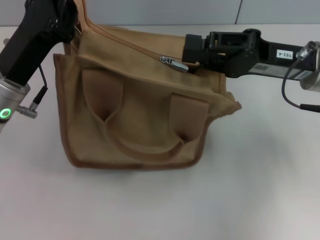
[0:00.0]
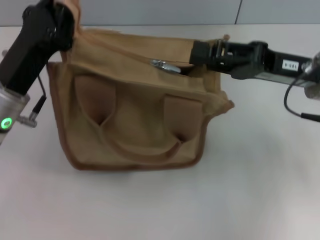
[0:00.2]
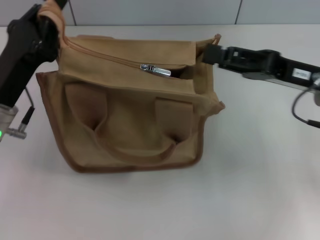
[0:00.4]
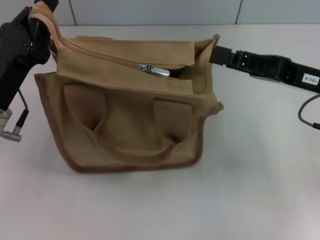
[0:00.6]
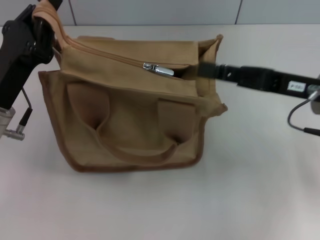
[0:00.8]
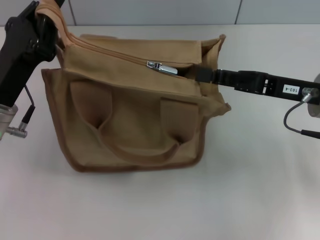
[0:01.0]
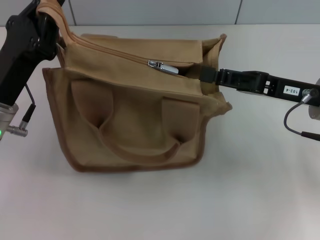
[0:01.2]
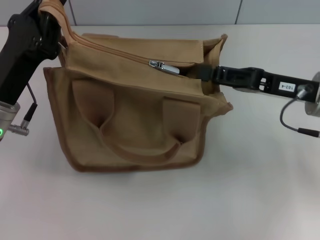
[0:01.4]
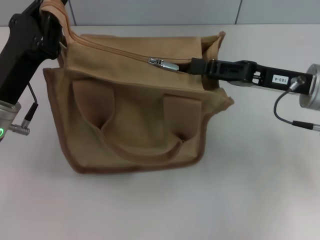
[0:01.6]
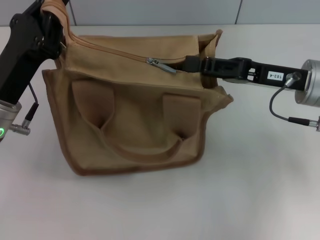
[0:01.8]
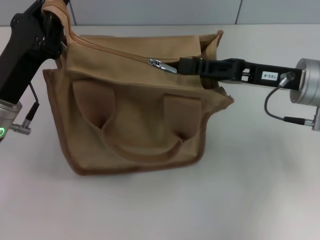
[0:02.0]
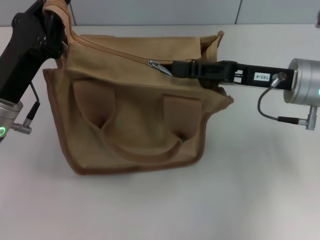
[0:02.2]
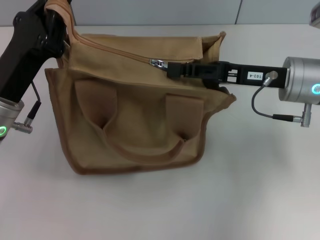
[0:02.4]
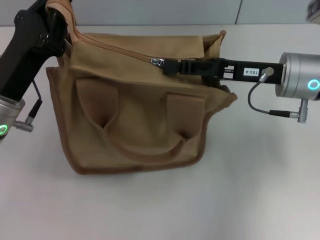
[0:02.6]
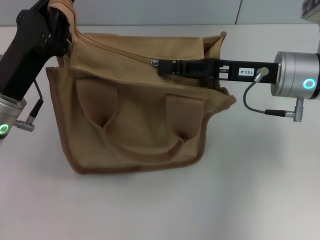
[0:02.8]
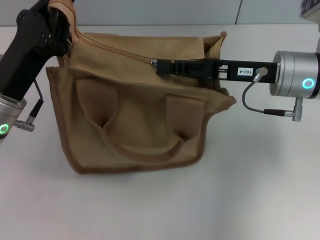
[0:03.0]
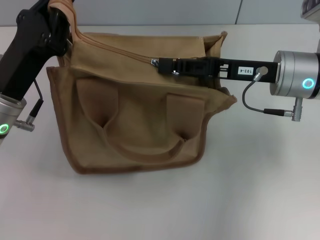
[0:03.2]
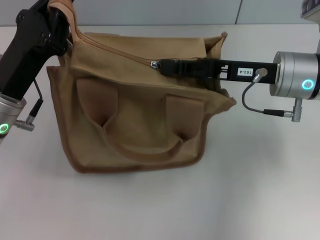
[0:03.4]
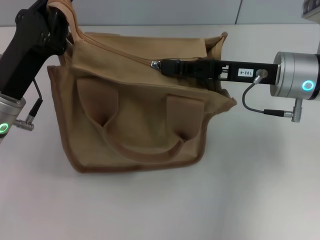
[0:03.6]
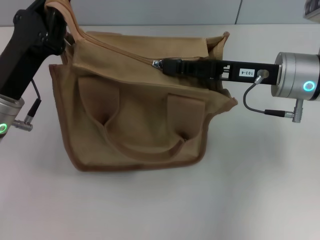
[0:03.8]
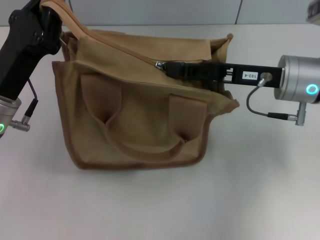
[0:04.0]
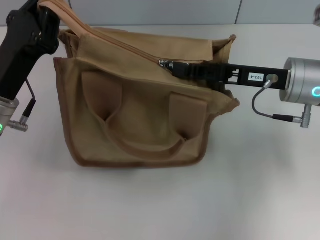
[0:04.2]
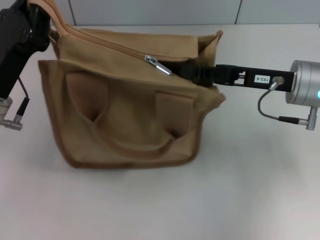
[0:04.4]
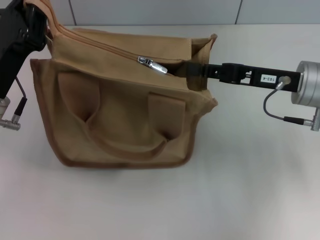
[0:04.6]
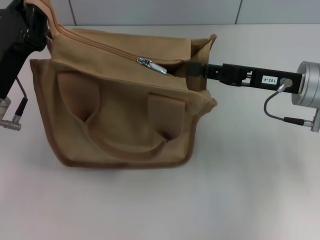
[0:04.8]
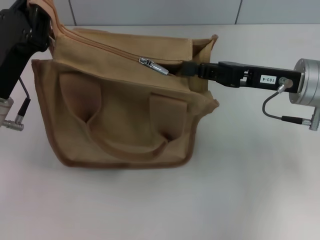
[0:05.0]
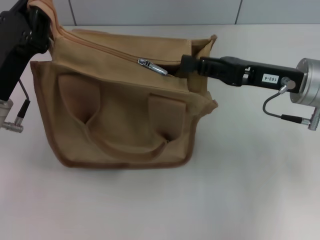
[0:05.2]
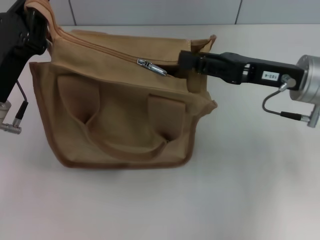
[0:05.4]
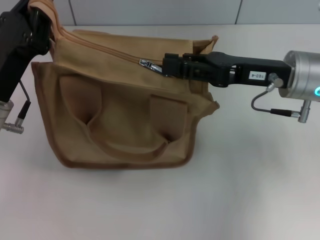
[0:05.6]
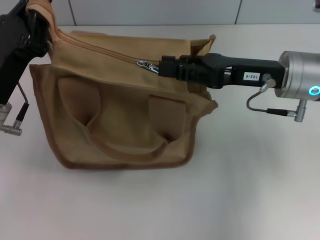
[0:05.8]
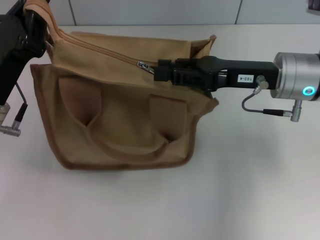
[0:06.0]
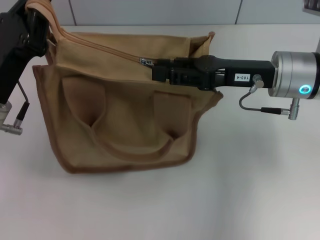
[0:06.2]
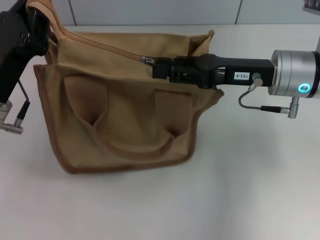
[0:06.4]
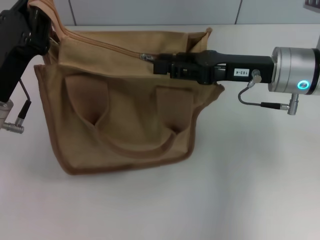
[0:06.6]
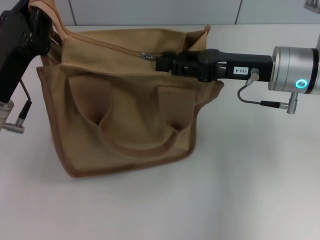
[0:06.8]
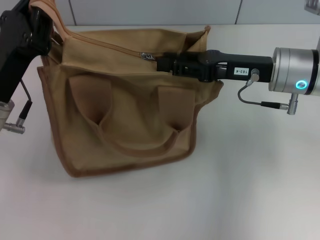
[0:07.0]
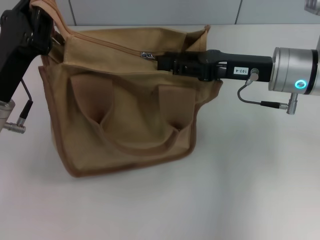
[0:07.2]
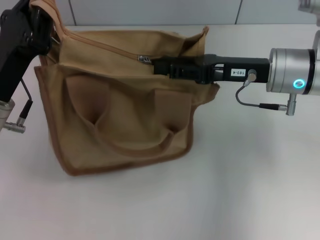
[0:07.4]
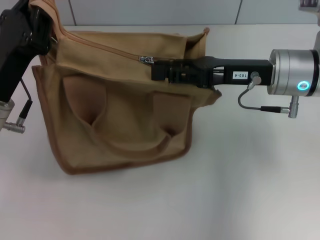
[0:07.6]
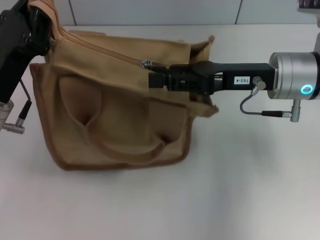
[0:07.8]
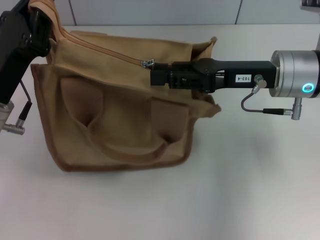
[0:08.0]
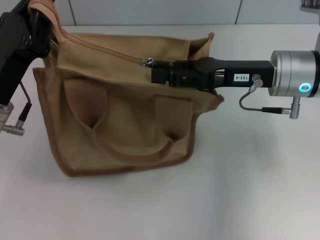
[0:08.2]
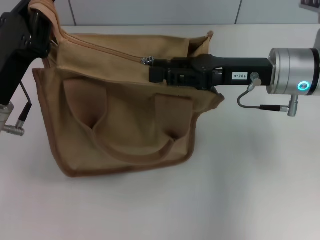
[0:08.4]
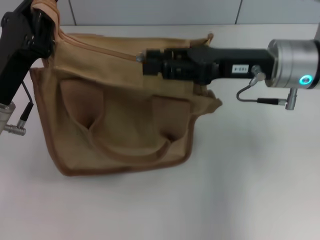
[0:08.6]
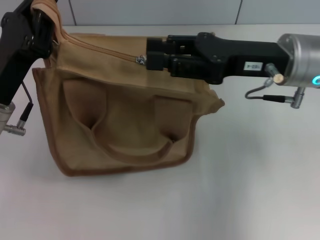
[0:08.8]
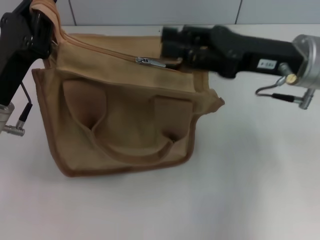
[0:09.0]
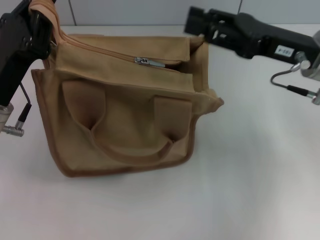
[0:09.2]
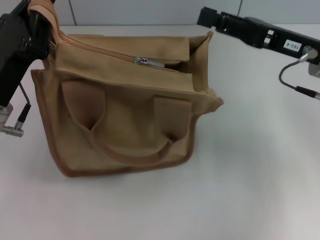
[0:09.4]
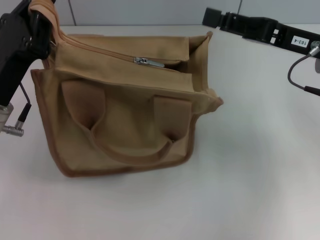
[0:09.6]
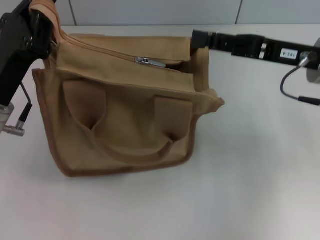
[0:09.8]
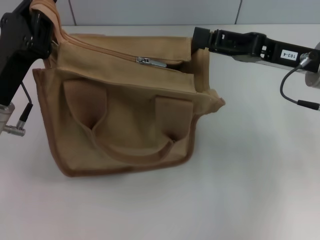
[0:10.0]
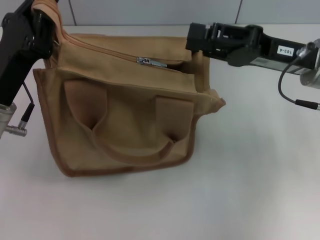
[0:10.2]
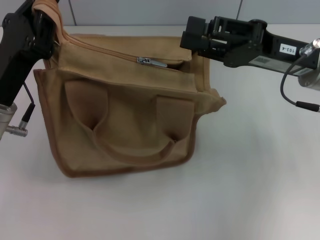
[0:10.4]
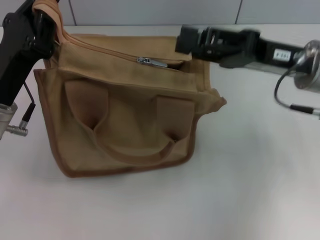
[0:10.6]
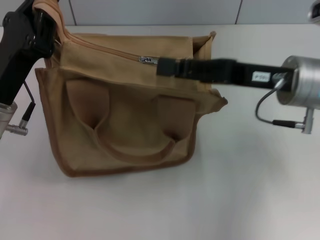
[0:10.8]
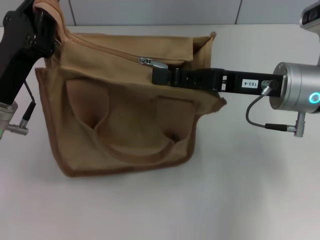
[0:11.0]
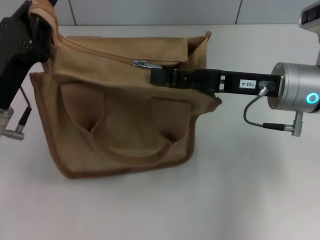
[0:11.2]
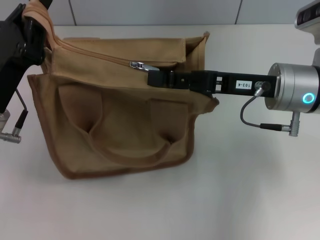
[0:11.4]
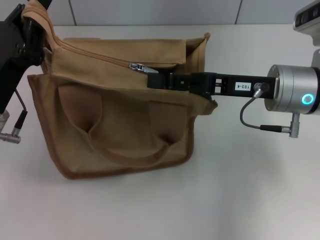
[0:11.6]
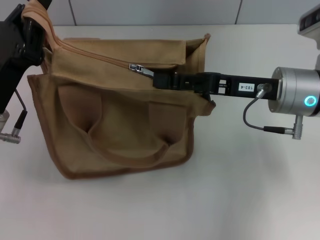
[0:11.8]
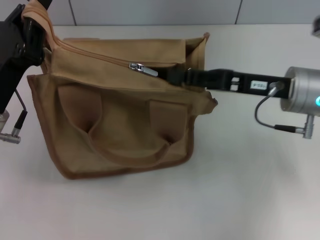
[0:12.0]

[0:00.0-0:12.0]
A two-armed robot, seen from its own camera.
0:01.6 to 0:04.4: There are only small adjustments of the grippers.
0:04.4 to 0:06.0: The right gripper opens.
0:06.0 to 0:07.6: The grippers stay close to where they were, moving slightly.

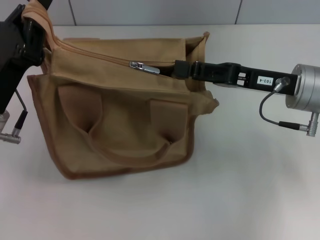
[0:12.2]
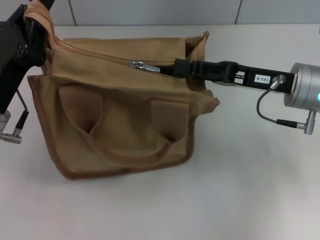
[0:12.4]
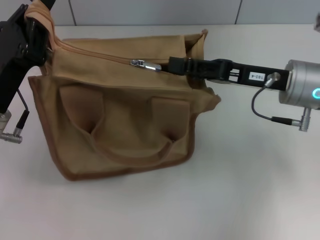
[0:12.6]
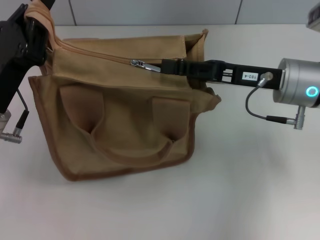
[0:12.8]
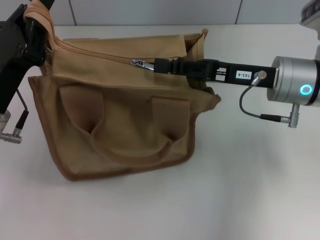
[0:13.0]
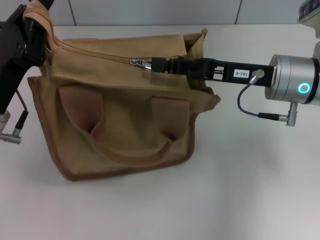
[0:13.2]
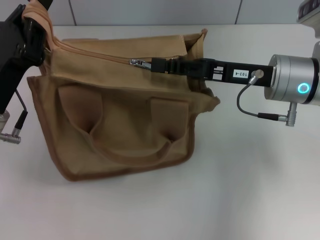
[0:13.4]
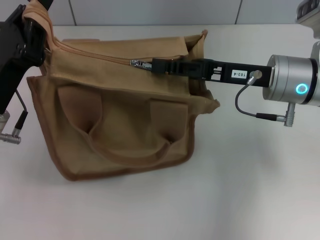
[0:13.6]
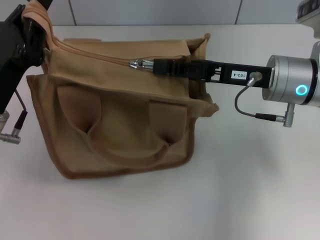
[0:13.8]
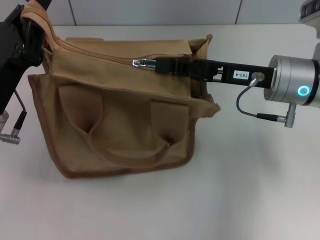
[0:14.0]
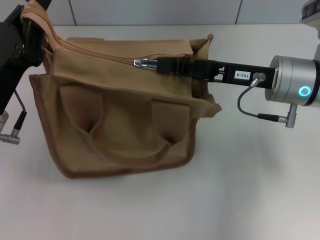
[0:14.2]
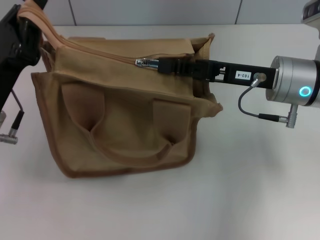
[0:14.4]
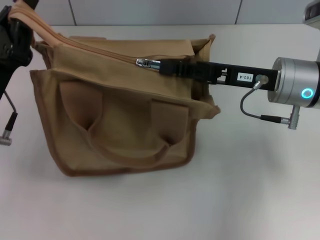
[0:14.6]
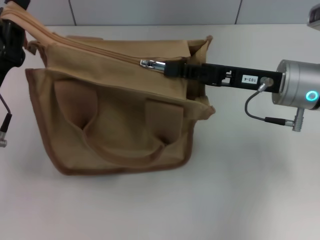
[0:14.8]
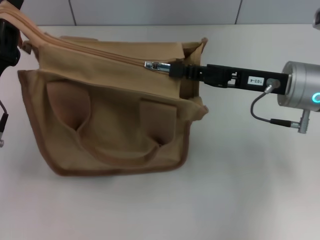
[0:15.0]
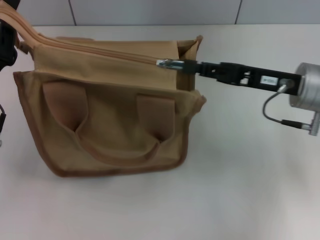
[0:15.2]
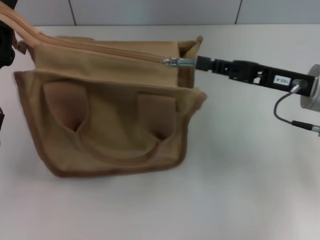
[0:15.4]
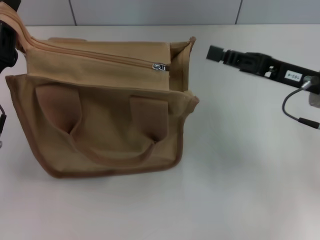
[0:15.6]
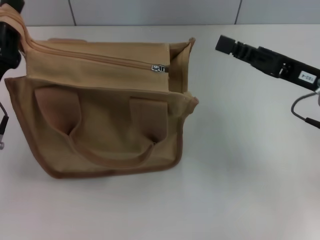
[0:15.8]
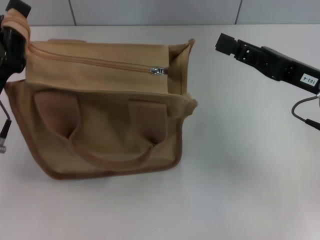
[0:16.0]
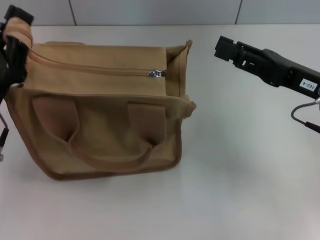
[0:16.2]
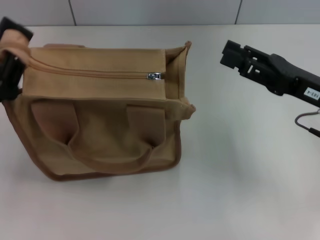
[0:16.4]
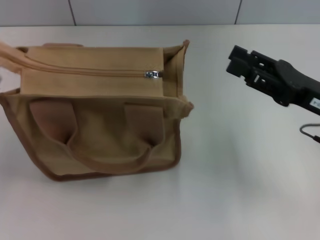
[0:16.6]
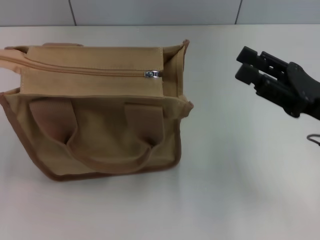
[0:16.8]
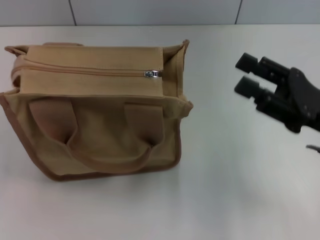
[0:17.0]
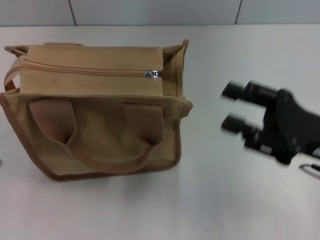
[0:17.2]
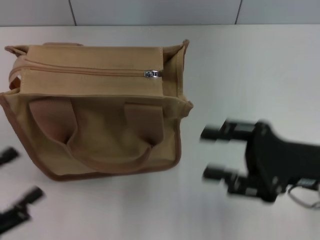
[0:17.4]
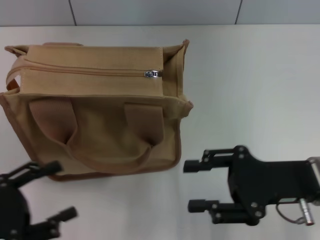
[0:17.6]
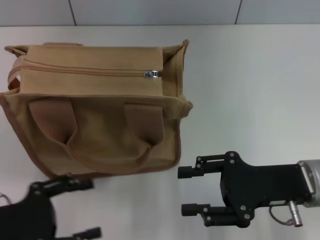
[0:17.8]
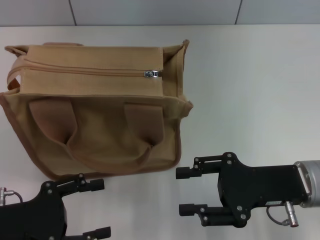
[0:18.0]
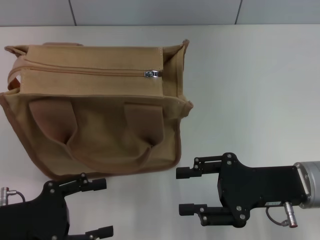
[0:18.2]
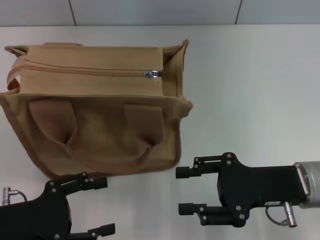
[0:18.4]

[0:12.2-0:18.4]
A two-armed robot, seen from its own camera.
Step, 0:12.2 to 0:15.4: Pull up the zipper with your right hand.
Step, 0:15.6 to 0:16.8: Grab the zipper with your left hand.
0:12.2 to 0:13.8: There are only small adjustments of the grippers.
0:13.8 to 0:15.4: The right gripper moves to the right, about 5 cm.
0:15.4 to 0:16.8: The right gripper shifts roughly 5 cm backward, and opens its fingers. Meanwhile the left gripper goes approximately 15 cm backward and to the left, and opens.
0:16.8 to 0:18.4: The left gripper travels to the right by about 5 cm. Meanwhile the right gripper changes place by about 5 cm.

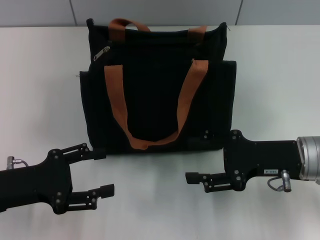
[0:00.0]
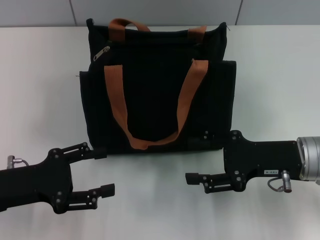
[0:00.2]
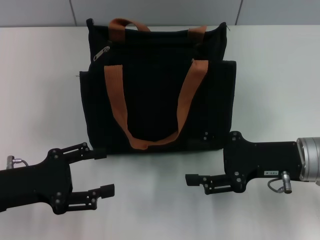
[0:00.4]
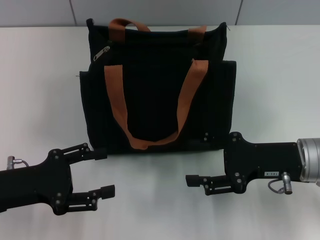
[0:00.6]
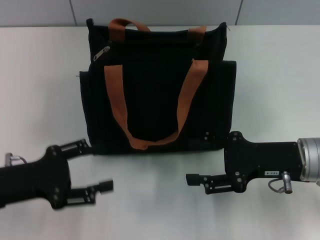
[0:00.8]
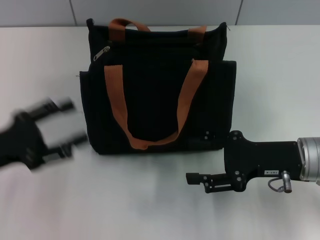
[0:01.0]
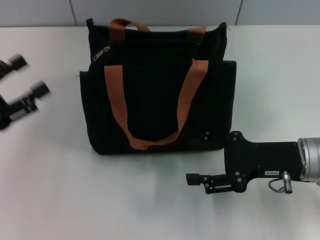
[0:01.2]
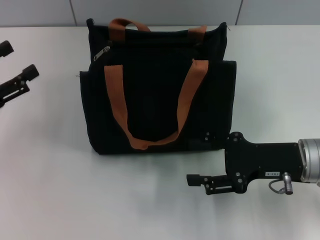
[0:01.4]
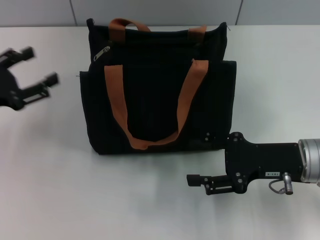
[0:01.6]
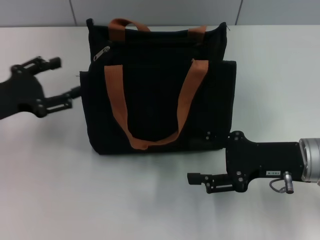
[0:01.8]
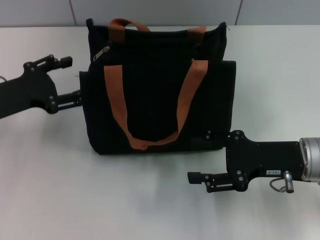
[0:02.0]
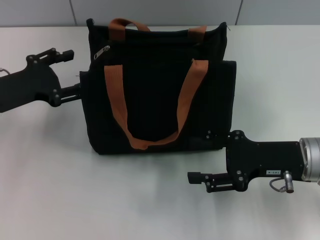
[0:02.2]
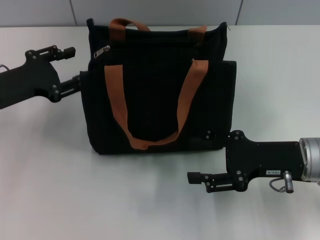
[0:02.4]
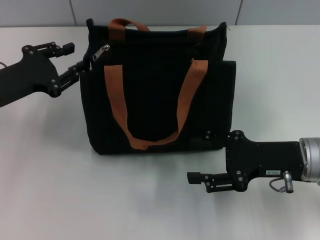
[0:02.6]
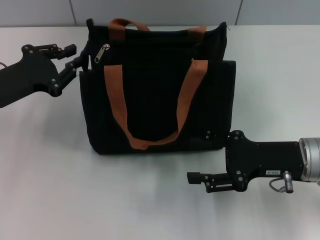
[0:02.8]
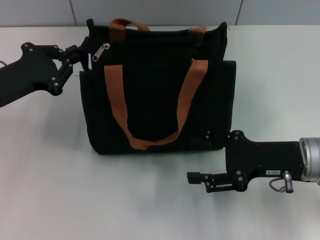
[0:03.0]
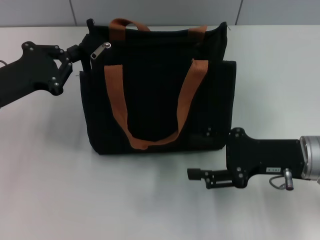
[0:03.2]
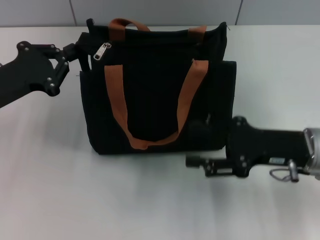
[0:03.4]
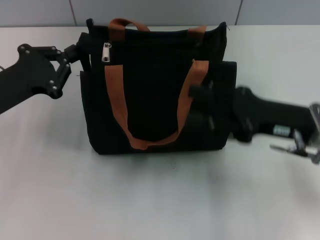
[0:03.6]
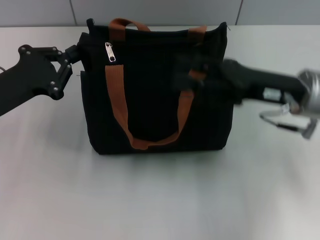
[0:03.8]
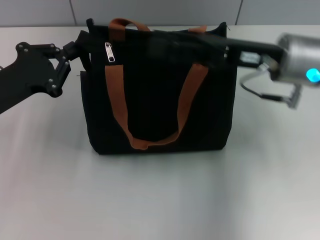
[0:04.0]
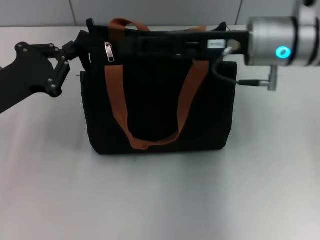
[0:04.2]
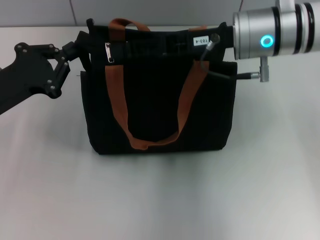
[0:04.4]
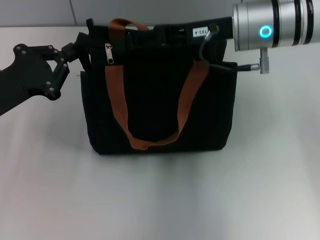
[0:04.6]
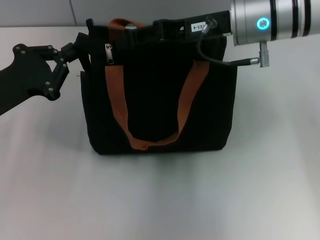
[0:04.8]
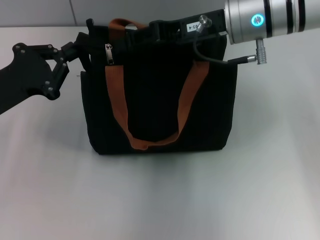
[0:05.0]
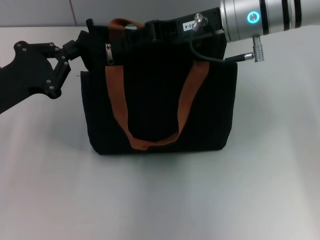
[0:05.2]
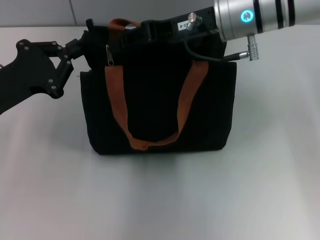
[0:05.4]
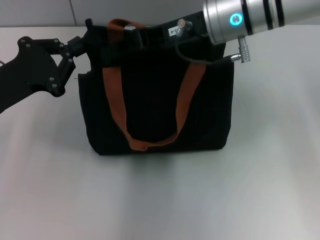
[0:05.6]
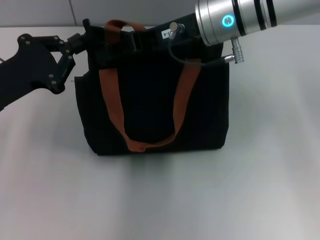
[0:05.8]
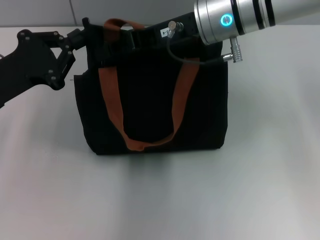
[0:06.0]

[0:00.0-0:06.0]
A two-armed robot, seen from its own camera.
0:00.0 to 0:01.6: The left gripper heads forward and to the left, covering about 10 cm.
0:01.6 to 0:03.0: The left gripper moves some 5 cm, and closes its fingers.
0:03.0 to 0:04.4: The right gripper goes roughly 20 cm upward, forward and to the left.
0:04.4 to 0:06.0: The right gripper ends up about 5 cm from where it was, and closes.
